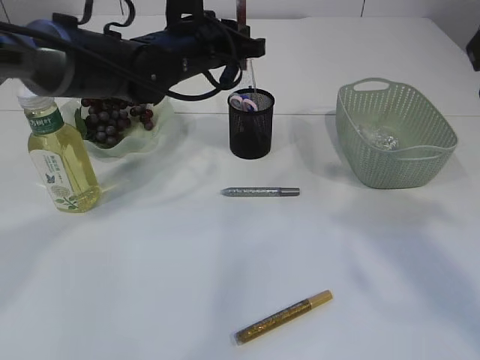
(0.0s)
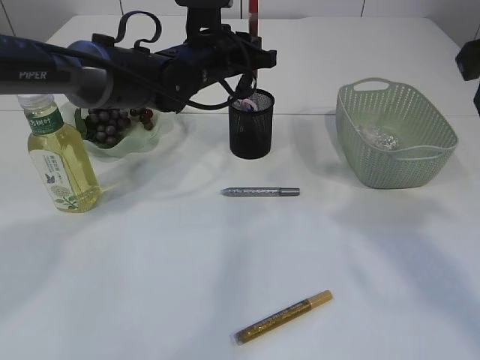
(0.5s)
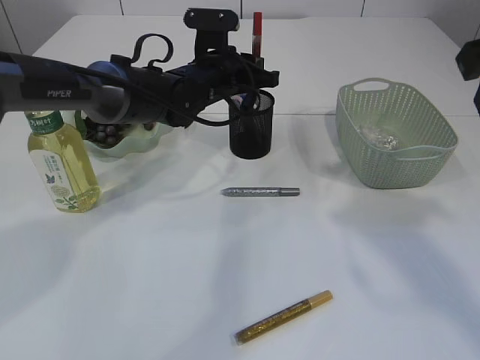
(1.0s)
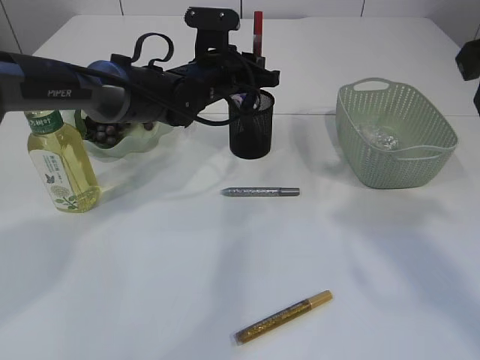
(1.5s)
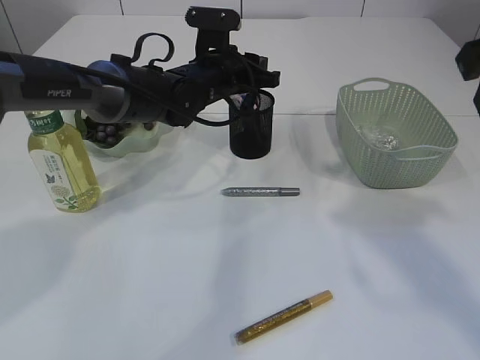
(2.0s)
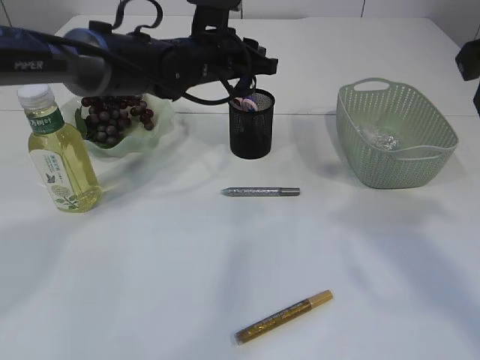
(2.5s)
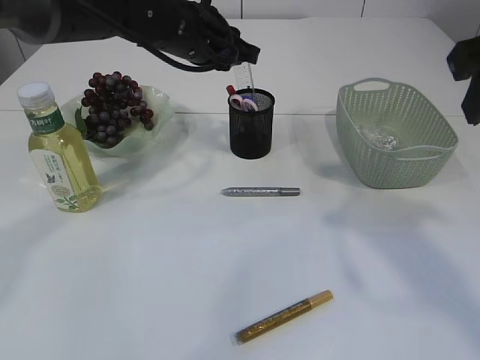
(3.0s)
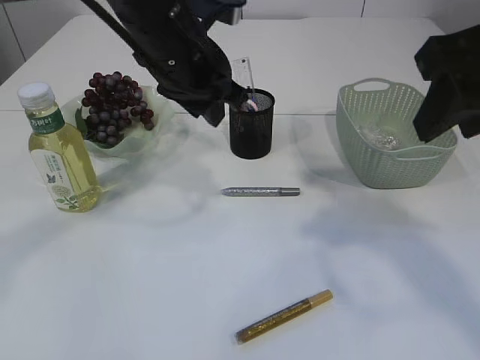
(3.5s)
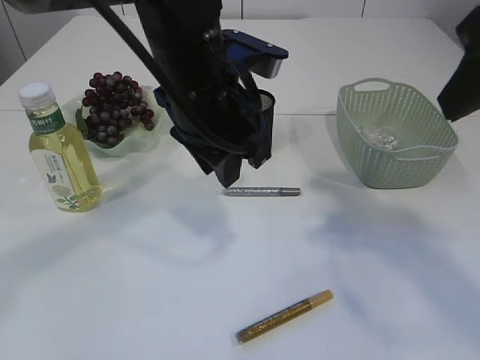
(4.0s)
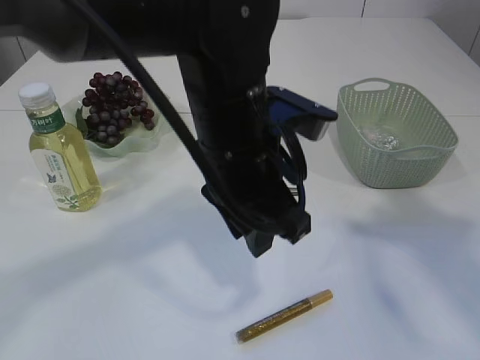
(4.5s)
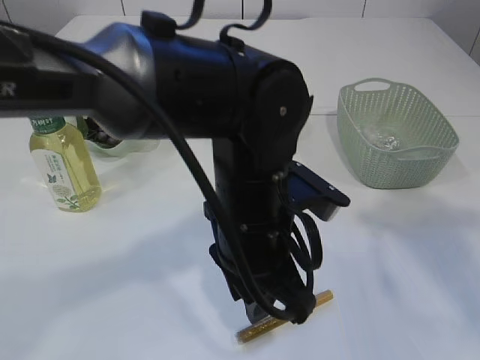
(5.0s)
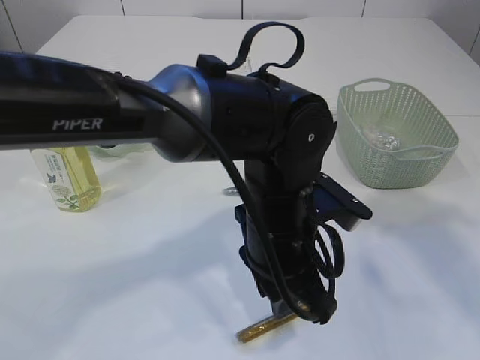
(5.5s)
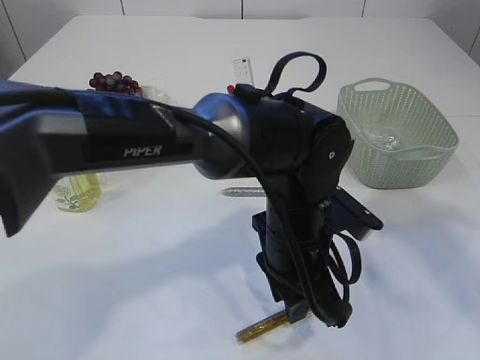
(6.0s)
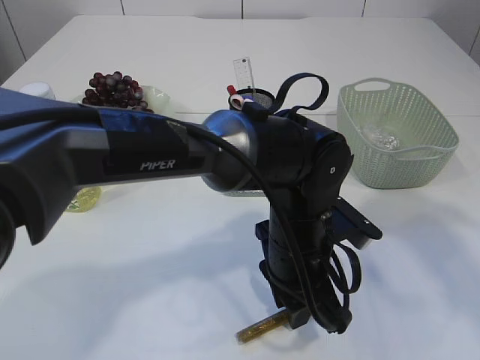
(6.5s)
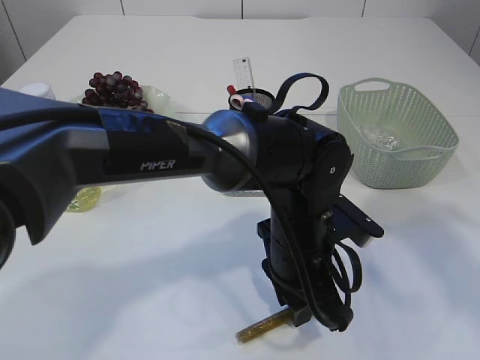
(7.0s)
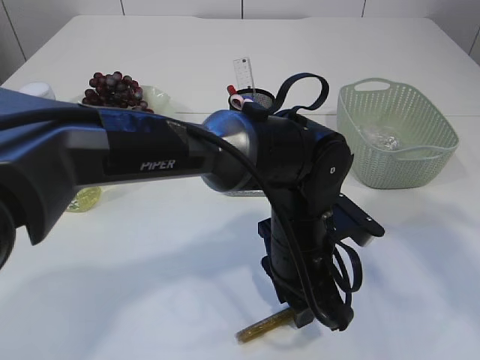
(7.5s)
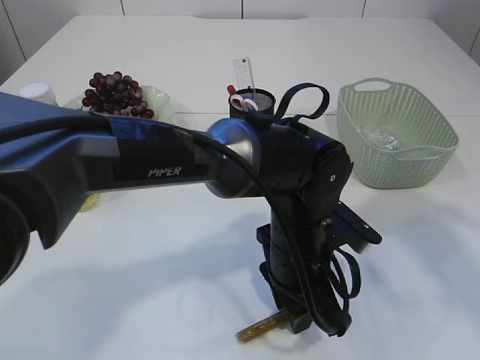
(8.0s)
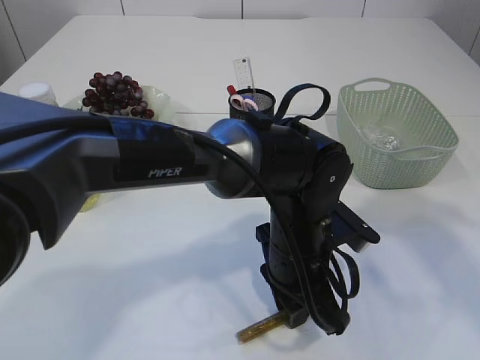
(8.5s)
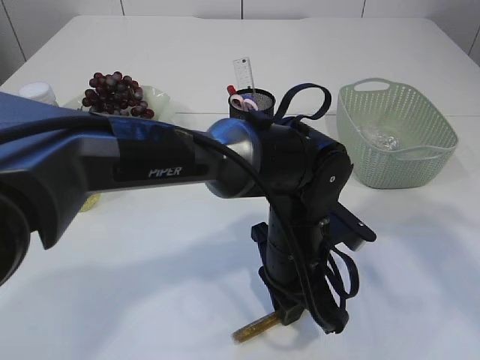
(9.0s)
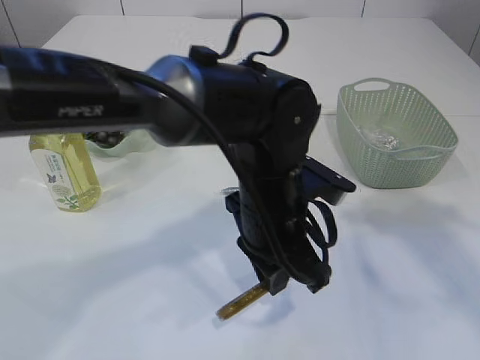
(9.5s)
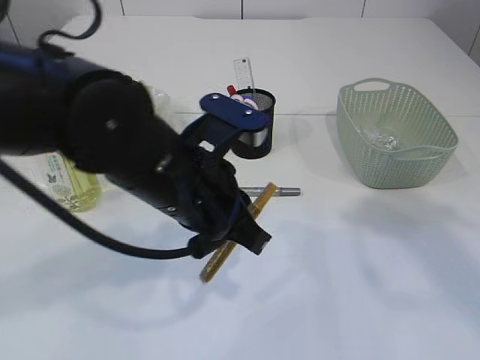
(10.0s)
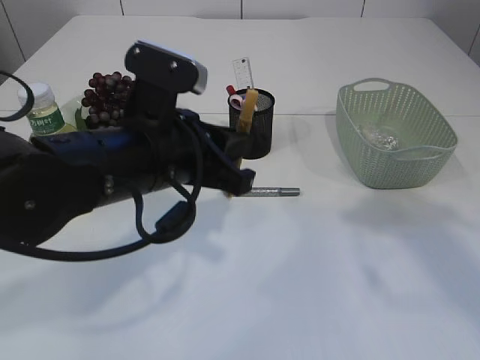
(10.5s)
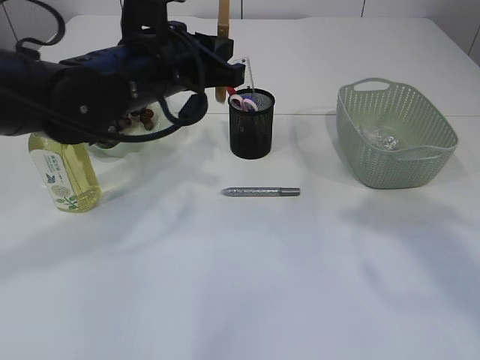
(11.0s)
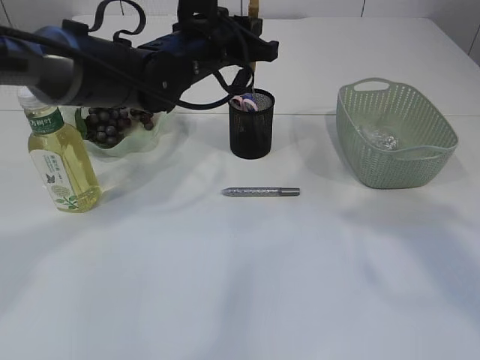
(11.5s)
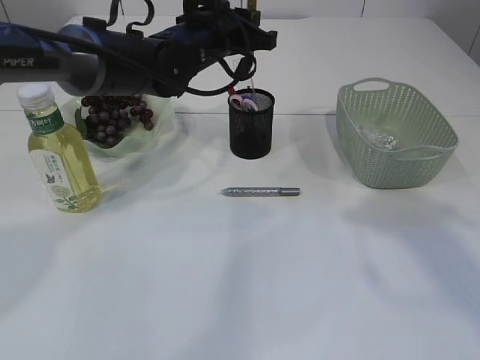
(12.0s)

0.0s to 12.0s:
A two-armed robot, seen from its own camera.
Step, 0.0s to 2.5s: place the red glue into the pen holder.
Step, 3.0s to 9.5s: pick up the yellow glue.
0.0s to 2.0s: The left gripper heads downward, covering approximately 5 cm.
2.0s to 4.0s: The left gripper travels backward and upward by about 20 cm.
4.0s to 6.0s: The left gripper shifts about 15 cm downward and to the right. The right gripper moves some 5 cm.
6.0s to 8.0s: There are only small adjustments of the grippers.
8.0s to 10.0s: The left gripper is displaced to the left and upward by roughly 15 cm, and closes its fingers.
10.0s to 12.0s: The left gripper shifts about 20 cm forward.

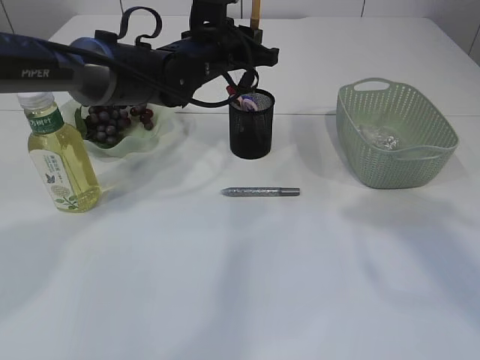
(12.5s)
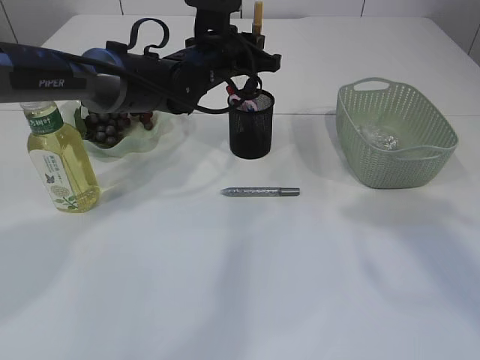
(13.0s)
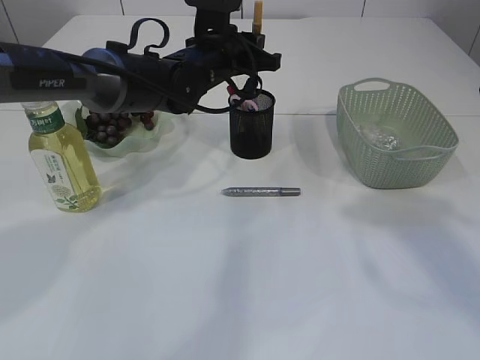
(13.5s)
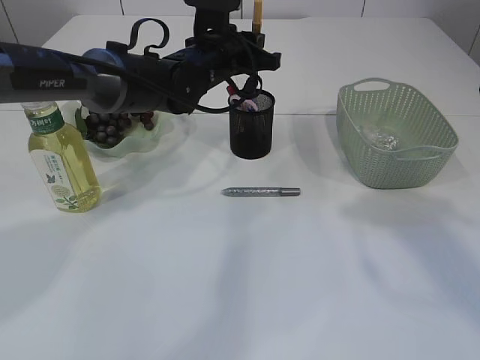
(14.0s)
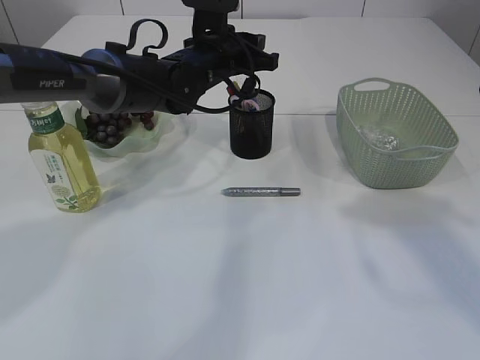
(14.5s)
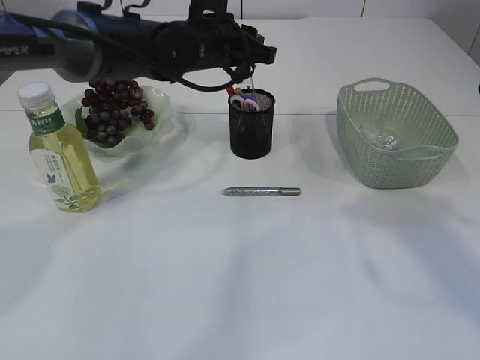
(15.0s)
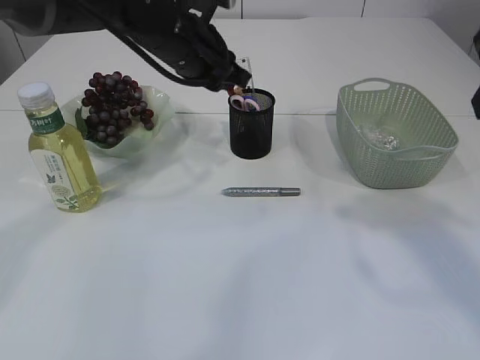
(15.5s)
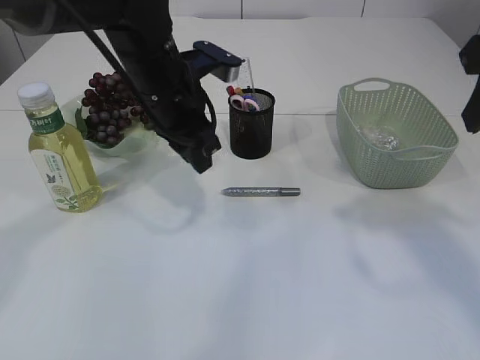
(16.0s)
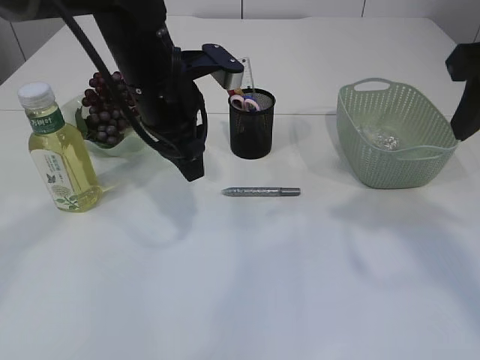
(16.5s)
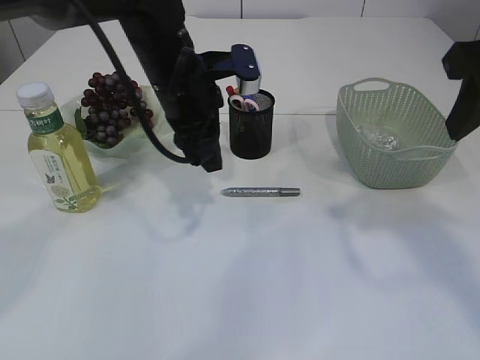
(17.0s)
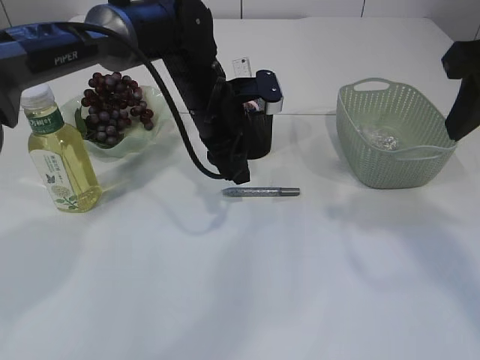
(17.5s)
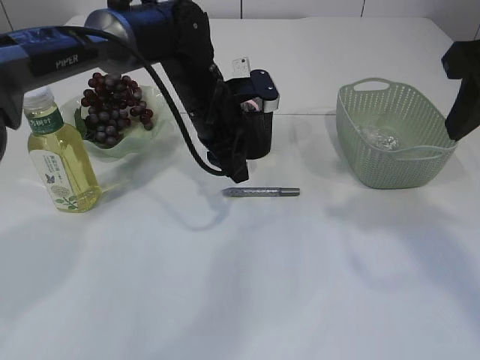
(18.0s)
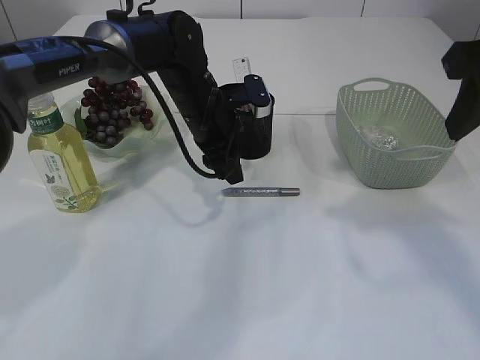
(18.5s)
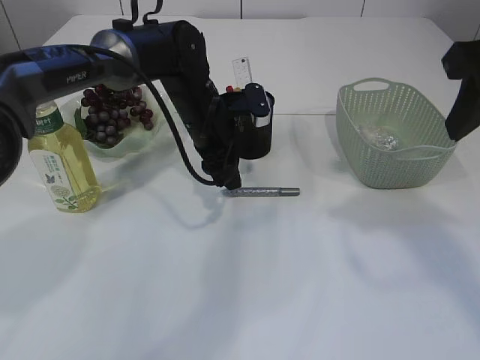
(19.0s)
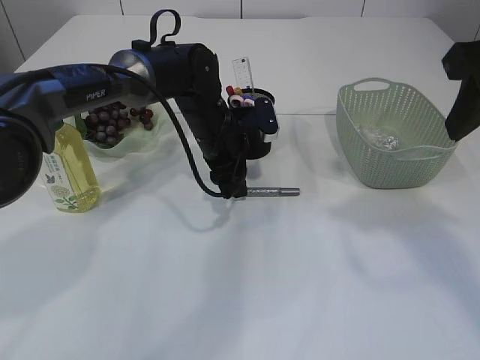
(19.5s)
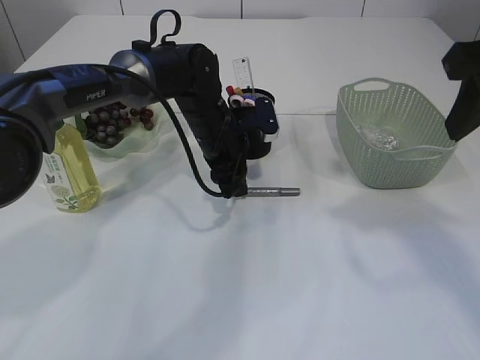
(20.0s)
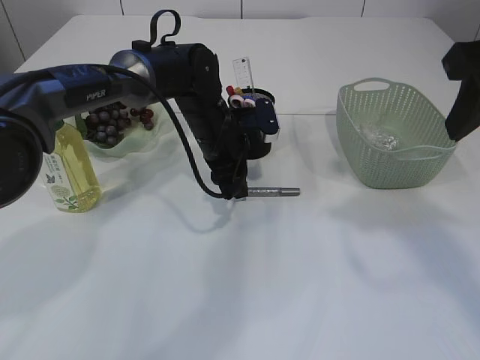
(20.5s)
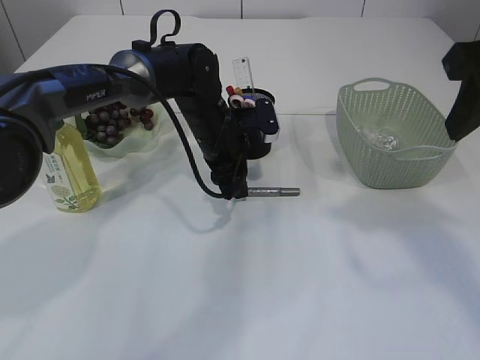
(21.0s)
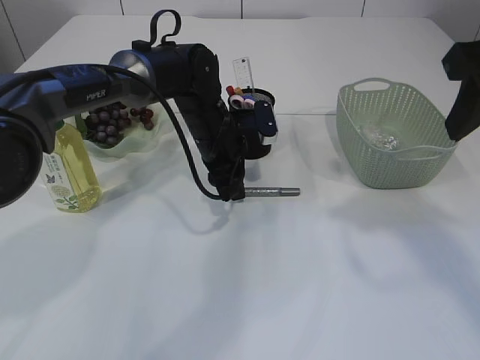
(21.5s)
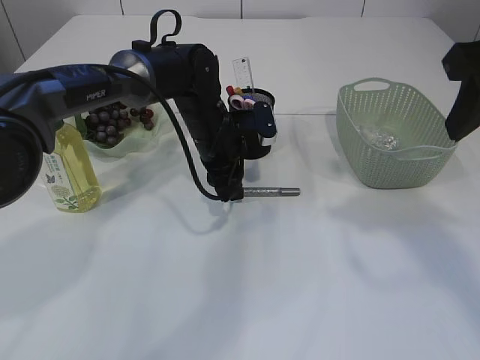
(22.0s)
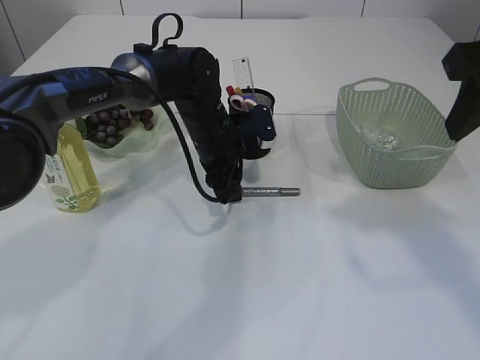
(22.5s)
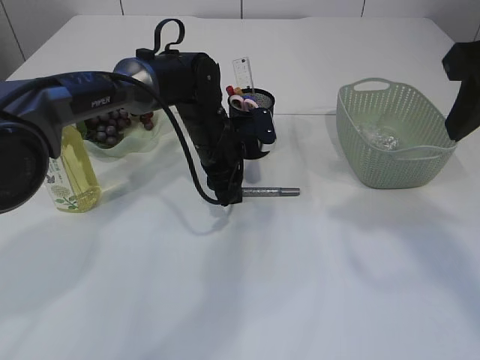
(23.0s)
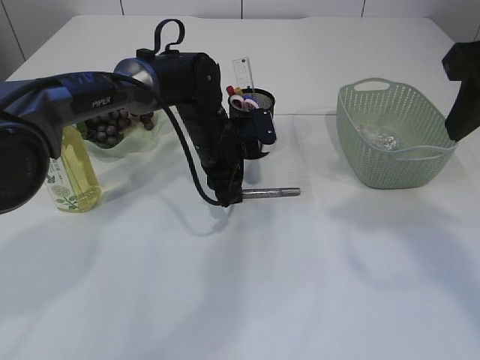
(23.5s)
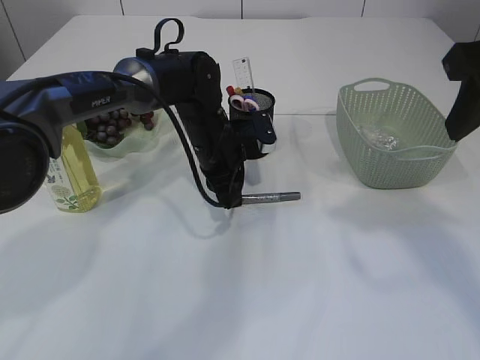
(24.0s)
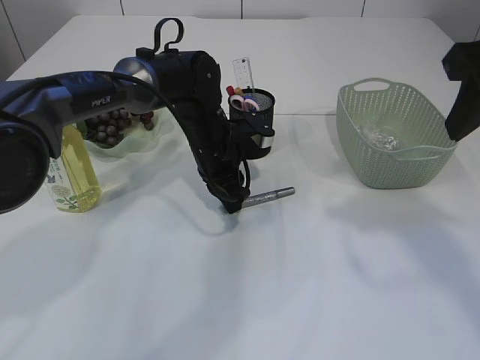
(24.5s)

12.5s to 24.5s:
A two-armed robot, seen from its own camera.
Step, 12.5s to 15.0s: place the yellow glue into the pen holder.
12.5s to 14.5s: There are only small adjustments of the grippers.
14.5s to 16.5s: The left gripper heads backward, covering approximately 10 cm.
16.5s to 18.5s: The left gripper goes approximately 10 cm downward and forward.
18.5s to 20.5s: The grippers move only a little.
20.5s to 22.5s: Both grippers stay about where they are.
22.5s to 24.5s: The left gripper closes its fingers.

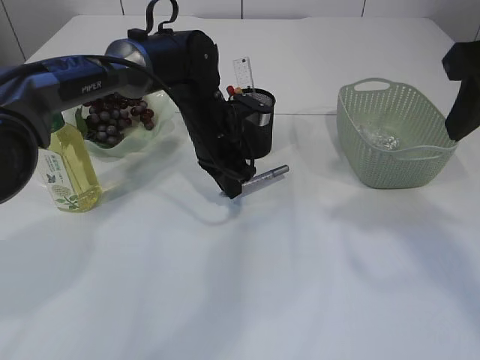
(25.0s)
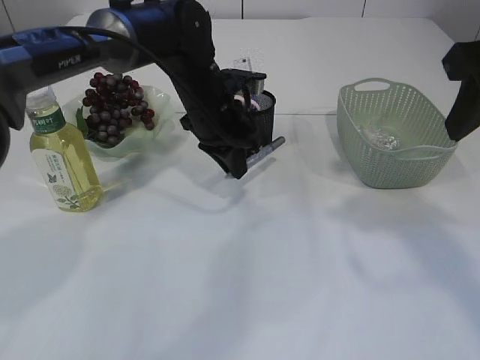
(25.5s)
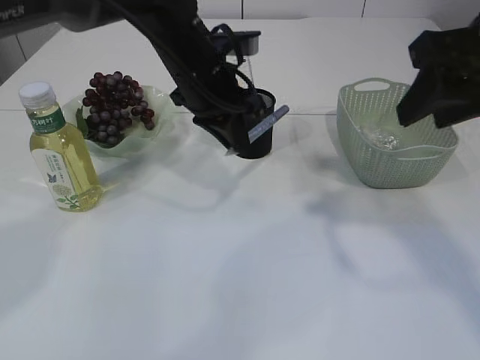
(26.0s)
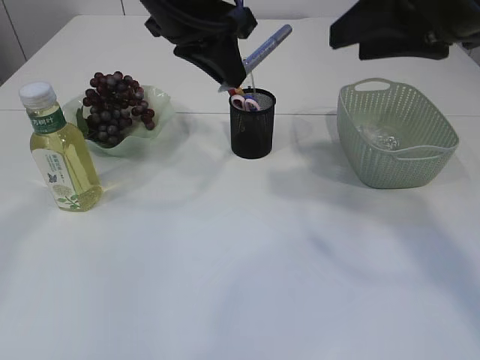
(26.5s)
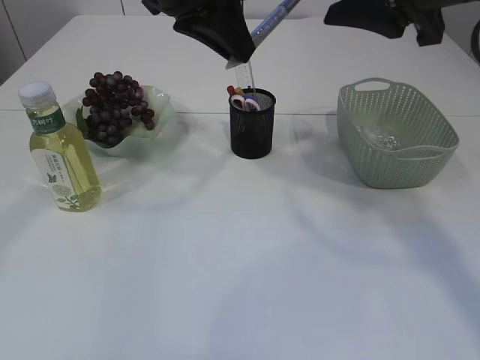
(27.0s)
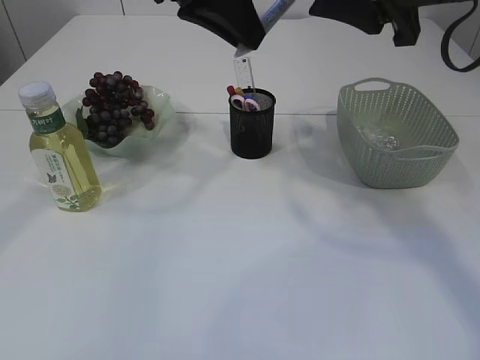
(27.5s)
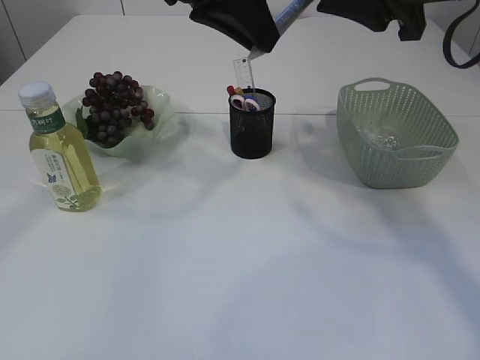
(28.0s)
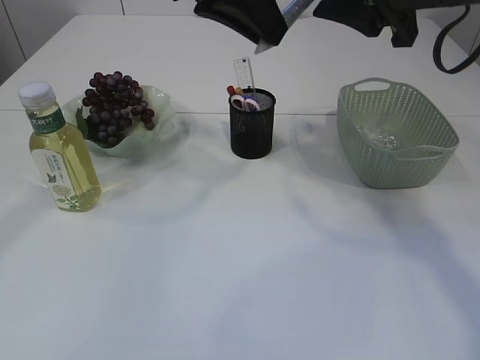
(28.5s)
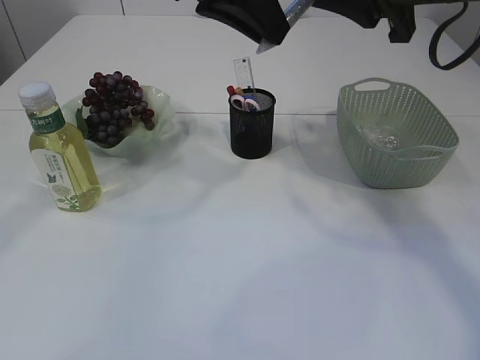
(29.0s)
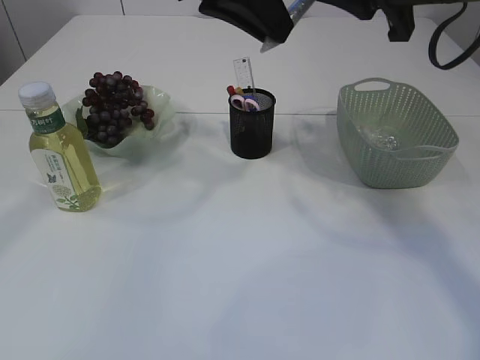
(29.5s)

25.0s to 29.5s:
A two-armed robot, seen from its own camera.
25.0s to 27.0s: The right gripper moves to the left, approximately 5 cm, while the left gripper is displaced upward by roughly 20 cm.
27.0s to 29.5s: The right gripper closes up.
